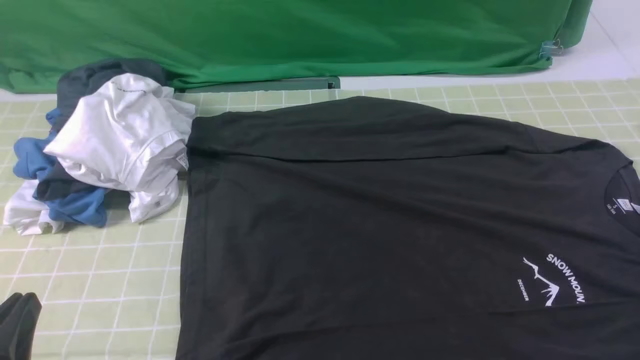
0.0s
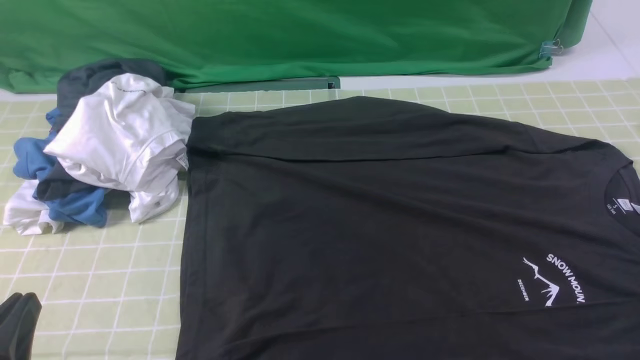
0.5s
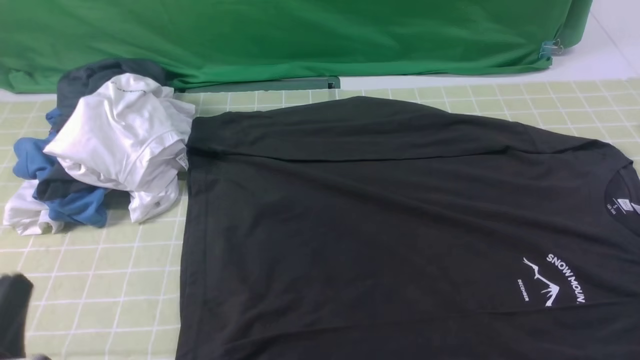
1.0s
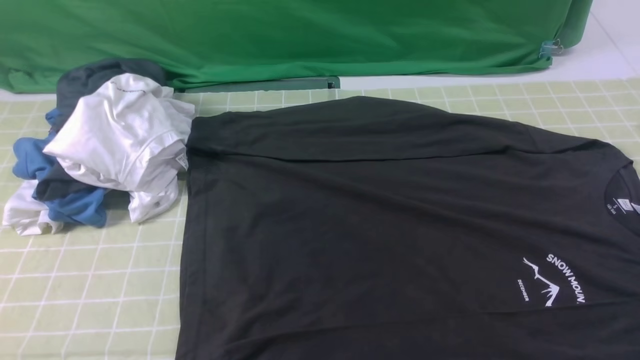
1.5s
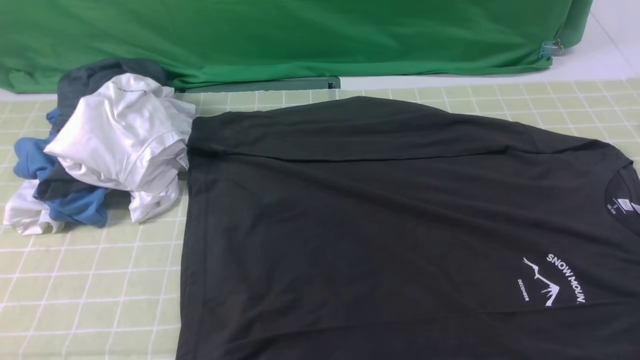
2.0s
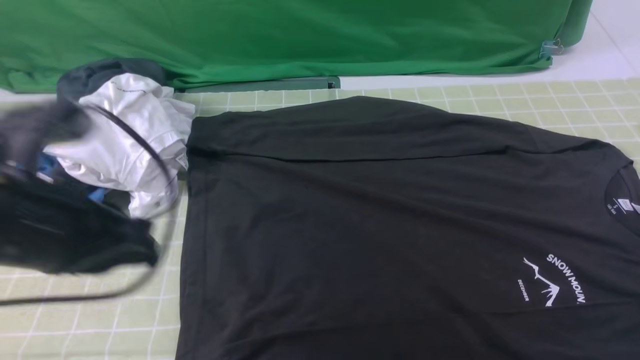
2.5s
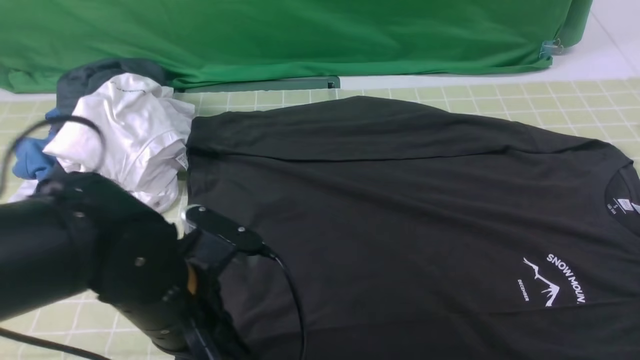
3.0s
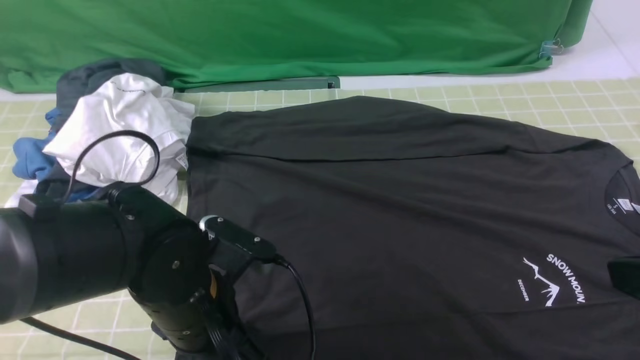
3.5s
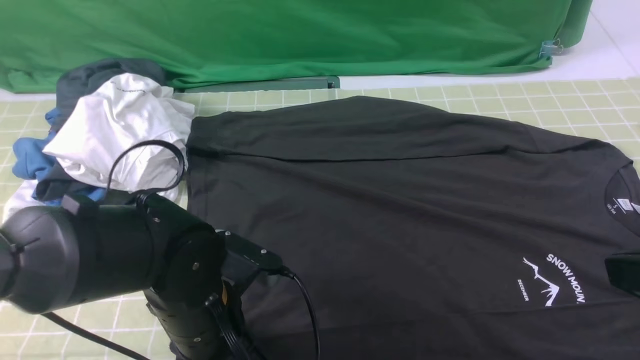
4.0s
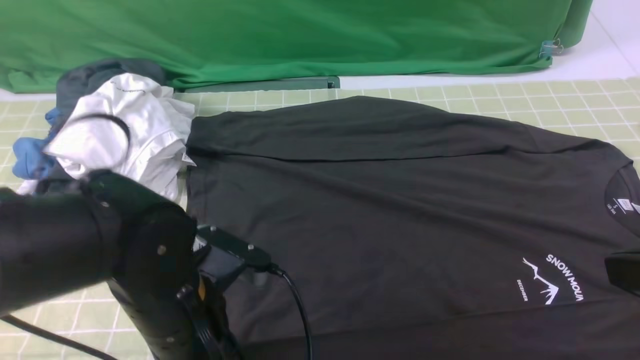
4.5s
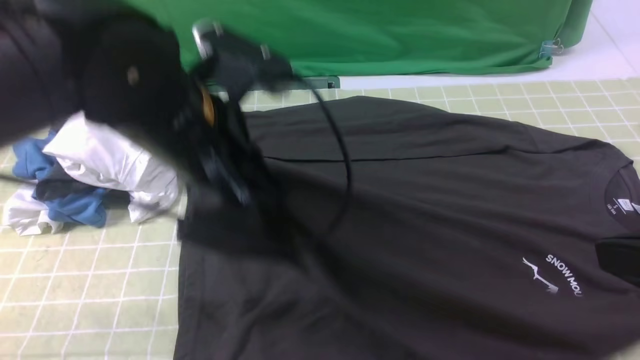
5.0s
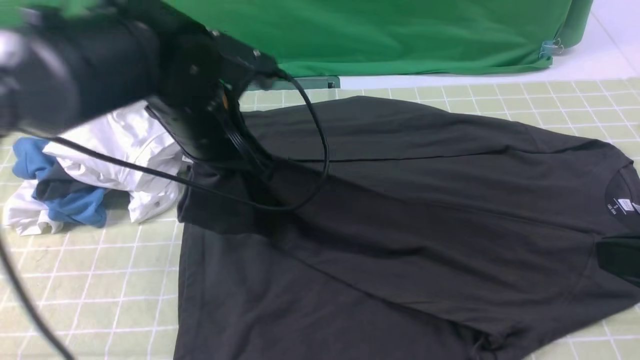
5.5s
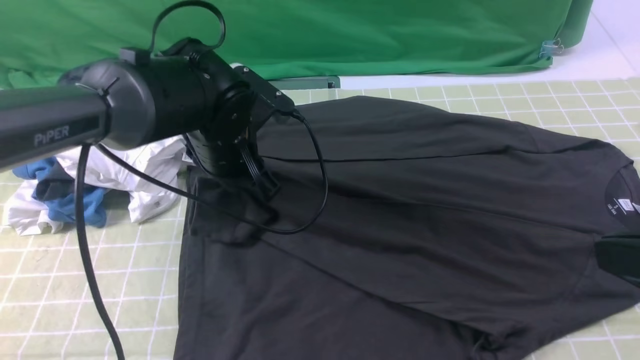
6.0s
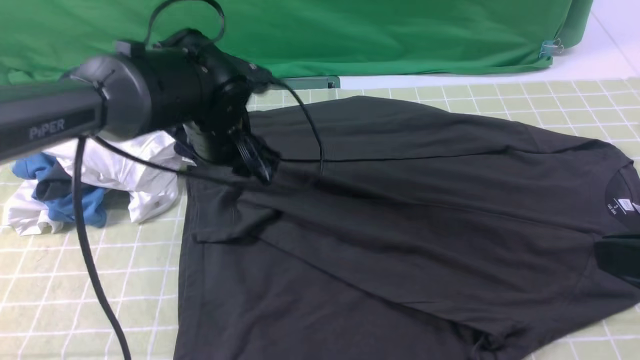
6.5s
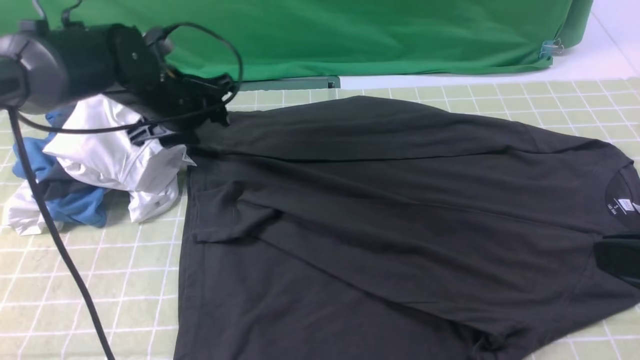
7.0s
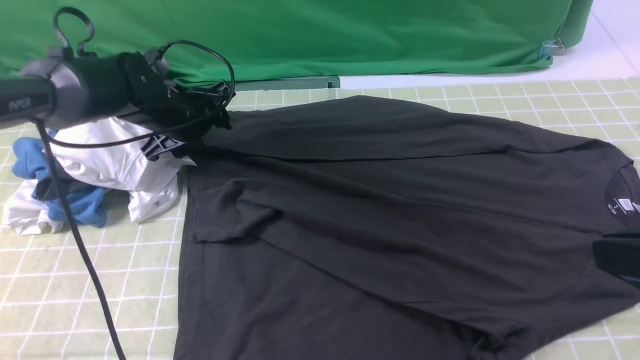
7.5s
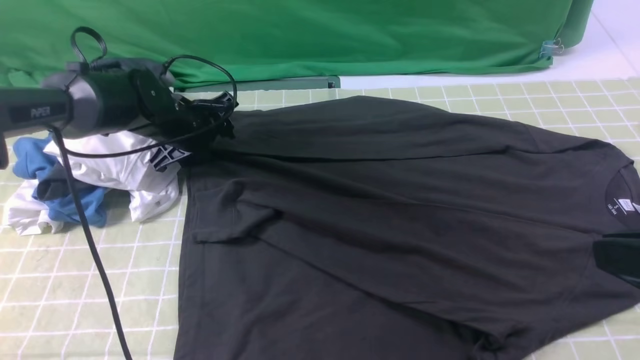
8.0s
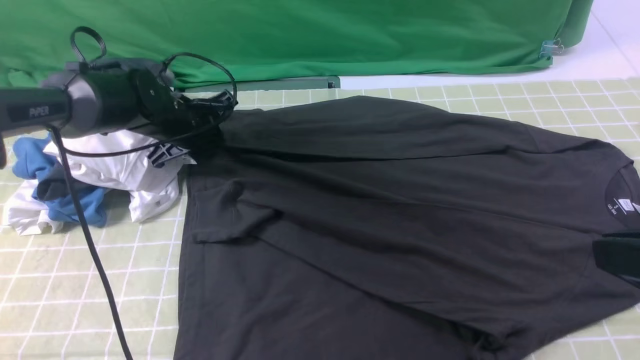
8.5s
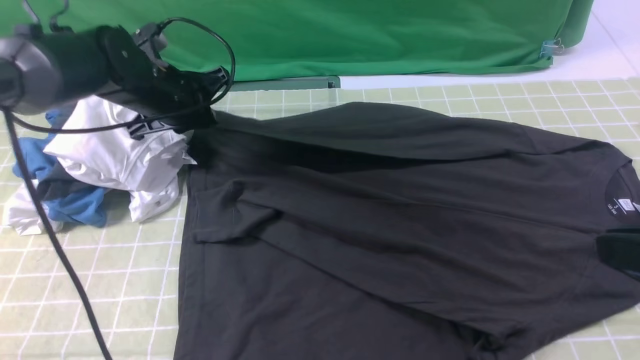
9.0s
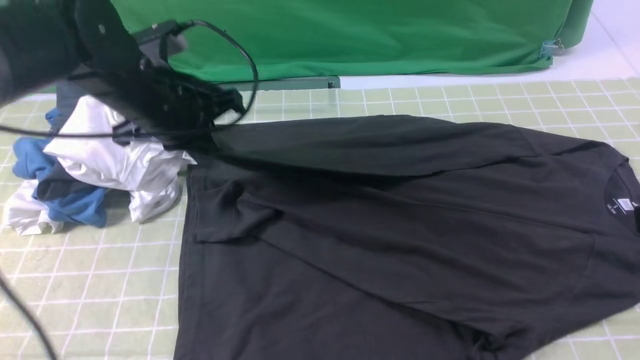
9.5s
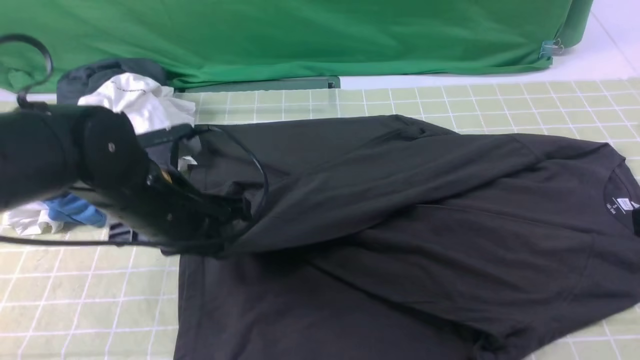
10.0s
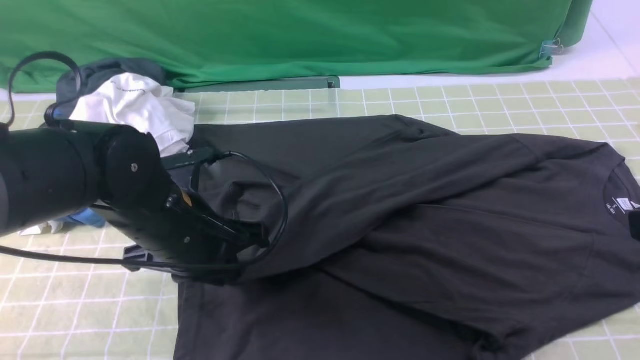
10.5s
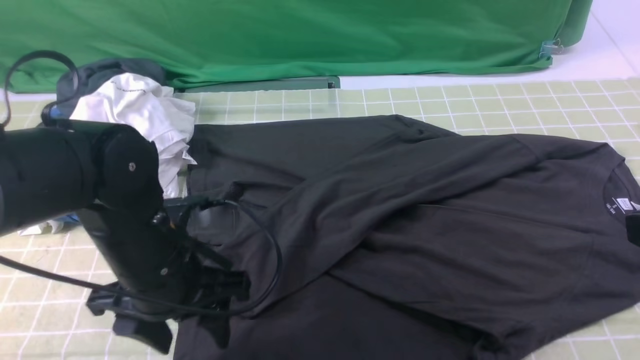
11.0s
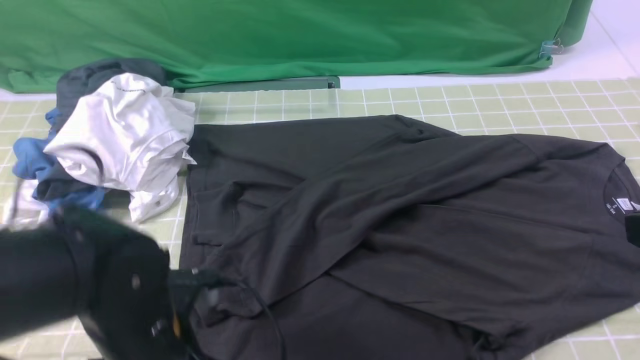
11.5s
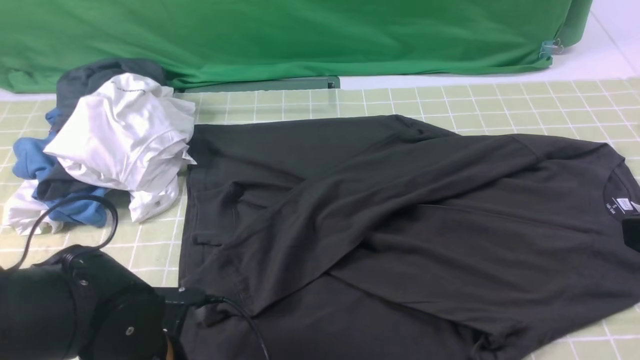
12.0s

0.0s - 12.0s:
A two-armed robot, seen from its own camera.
Step, 0.0s - 4.0s: use the left arm to clamp the cuff closest to it.
Step, 4.5s - 6.0s: use the left arm to drag and place the cuff at the centered position on the left edge of the fabric.
Step, 6.5s - 8.0s: use the left arm to clamp the cuff farthest from it.
Step, 9.0s - 10.5s: use the left arm to drag and drop the cuff onto the cuff closest to the left arm.
0.0s - 2.0s: The left gripper moves upward, roughly 20 cm.
2.0s - 4.0s: The right gripper travels upward and to the left by roughly 10 cm, and closes up; the left gripper heads downward, forward and to the right, covering approximately 30 cm, and opens.
4.0s - 6.0s: The left gripper heads forward, covering about 15 cm, and closes, then reopens.
6.0s - 8.0s: The left gripper goes some 15 cm to the left, forward and downward.
8.0s - 10.0s: The left gripper travels backward by approximately 15 cm, and closes up.
10.0s - 12.0s: The left gripper heads backward and downward, covering some 15 cm, and opens up.

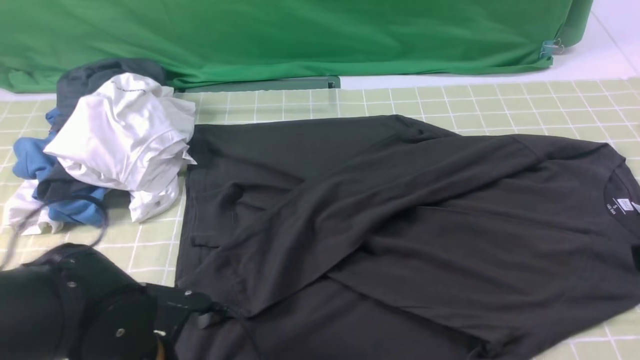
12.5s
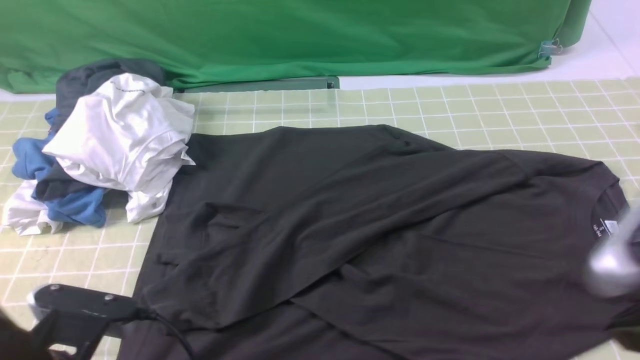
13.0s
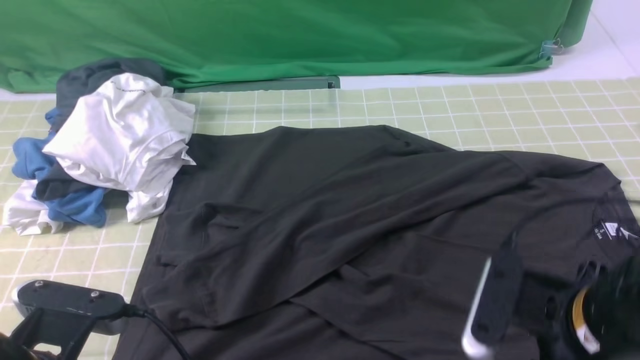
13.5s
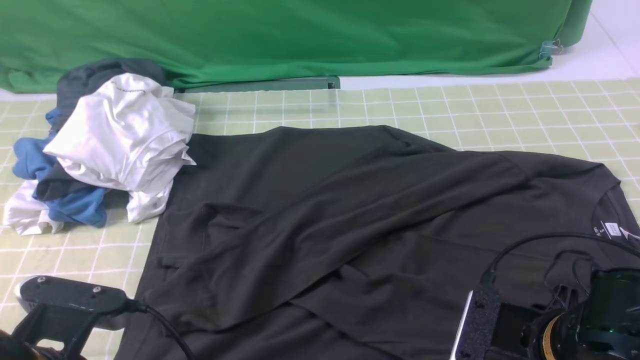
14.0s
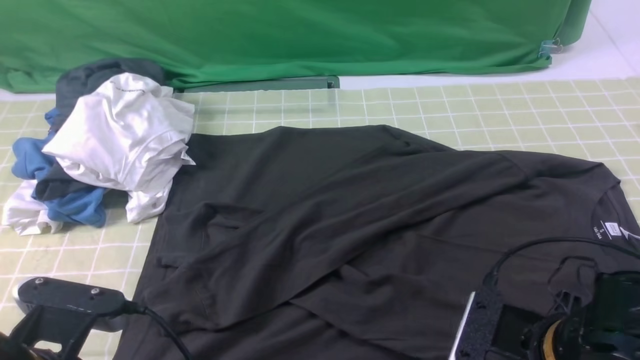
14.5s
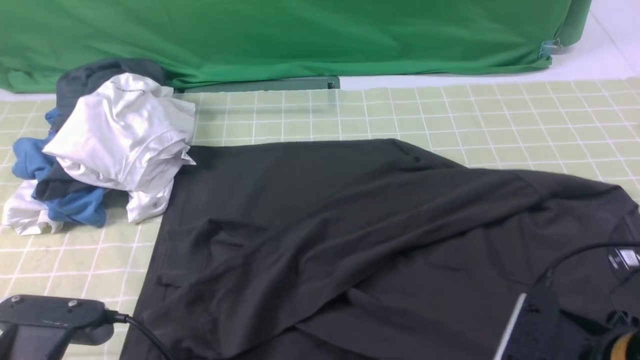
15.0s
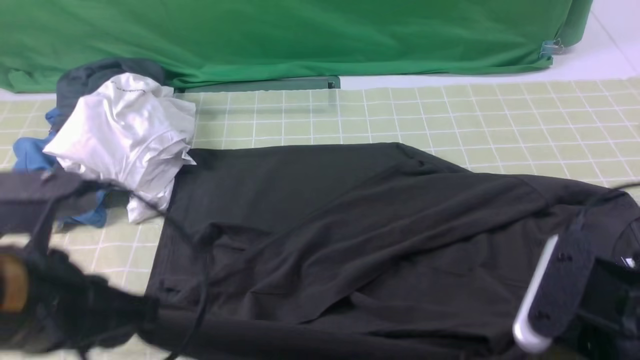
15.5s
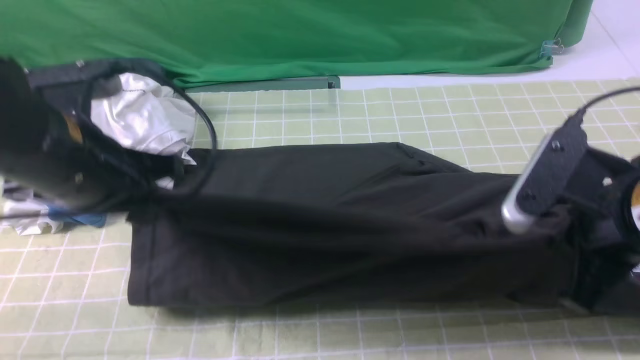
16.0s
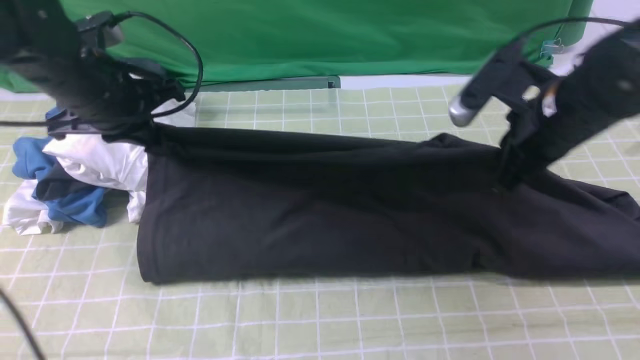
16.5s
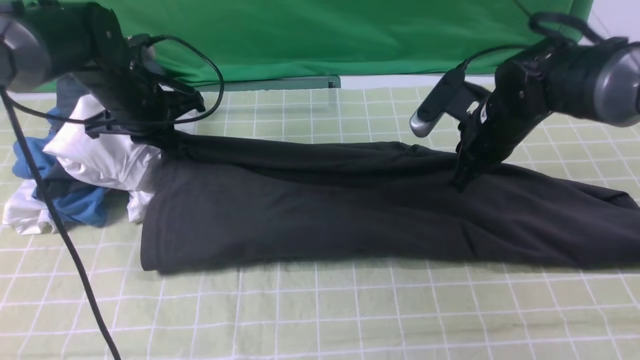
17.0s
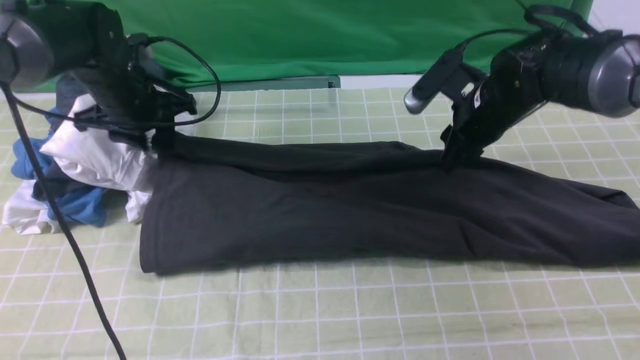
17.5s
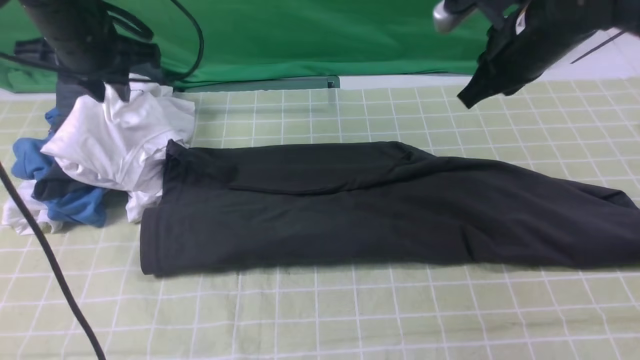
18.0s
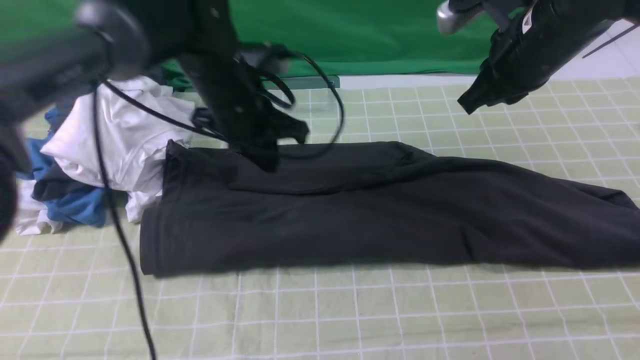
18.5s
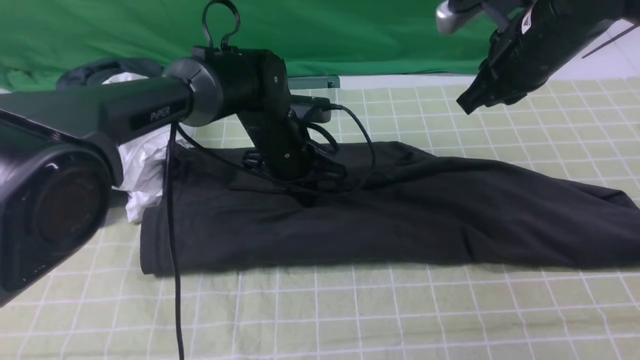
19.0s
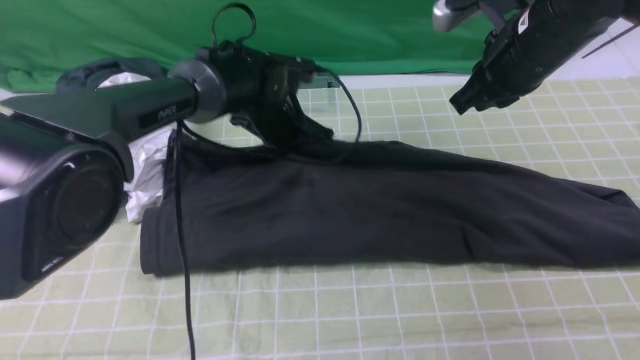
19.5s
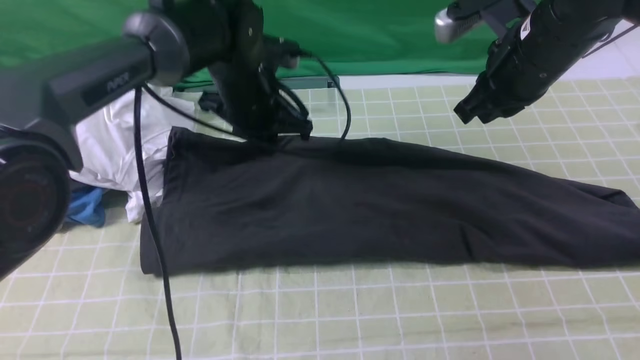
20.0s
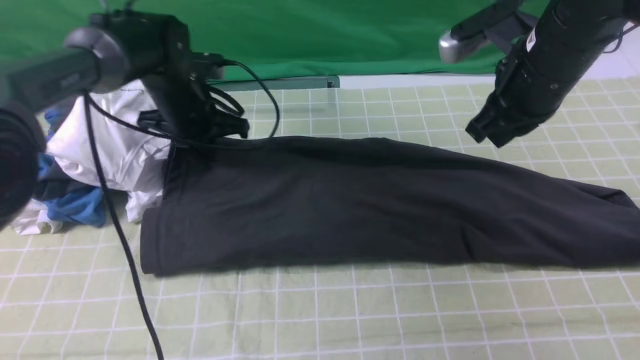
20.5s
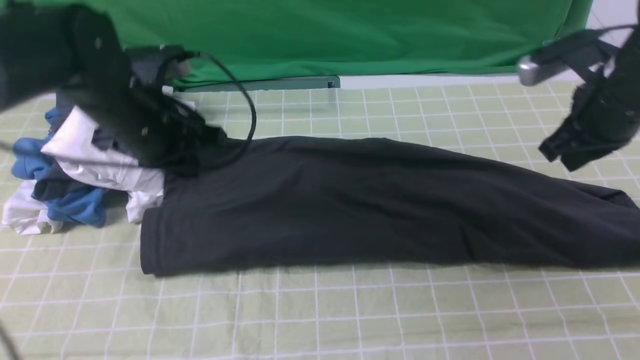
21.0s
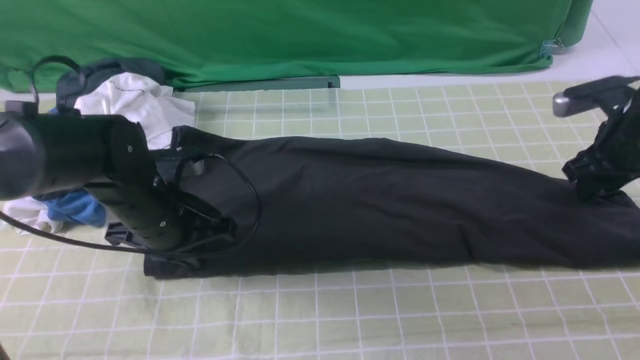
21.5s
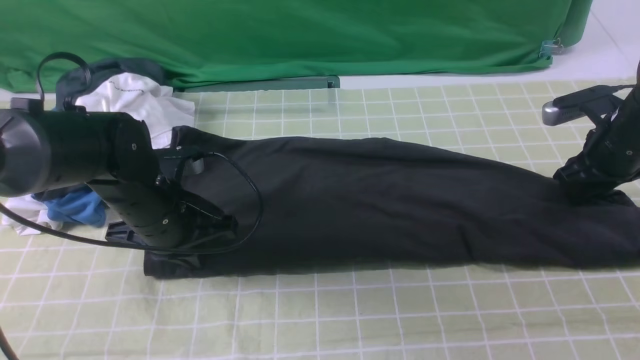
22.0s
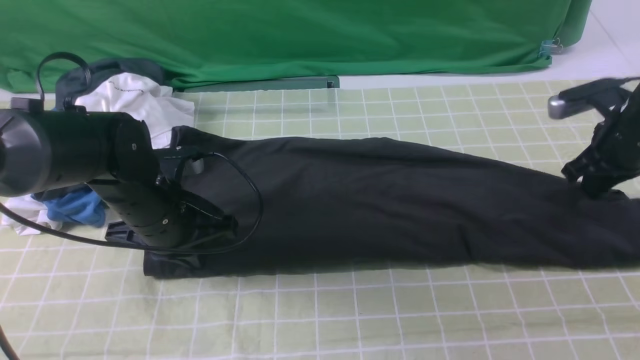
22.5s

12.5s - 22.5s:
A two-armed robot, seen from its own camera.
Step, 12.5s - 14.5s: use both arms simultaneously to clamp the lower edge of the clothing fabric.
Step, 15.0s - 19.5s: use both arms to drag the lower edge of the fabric forward and fold it over the upper edge.
12.5s - 14.5s: The left gripper goes about 5 cm upward. Meanwhile the right gripper heads downward, covering roughly 20 cm, and opens, then closes once more.
14.5s - 16.5s: The left gripper moves forward, about 25 cm; the right gripper goes about 20 cm forward and upward.
16.5s - 18.5s: The left gripper goes about 10 cm to the right, and opens and closes again; the right gripper is displaced forward by roughly 5 cm, and opens, then closes once more.
18.5s - 20.5s: The left gripper shifts approximately 5 cm to the left.
20.5s - 22.5s: The left gripper is displaced backward by some 15 cm. The right gripper goes some 20 cm to the right and downward, and opens, then closes again.
